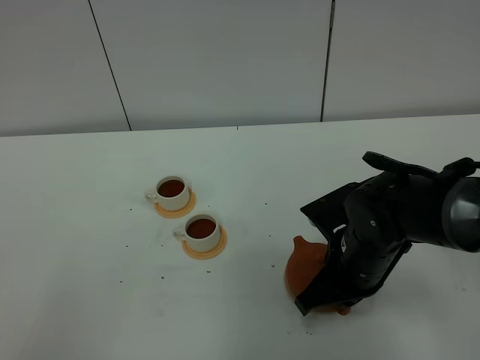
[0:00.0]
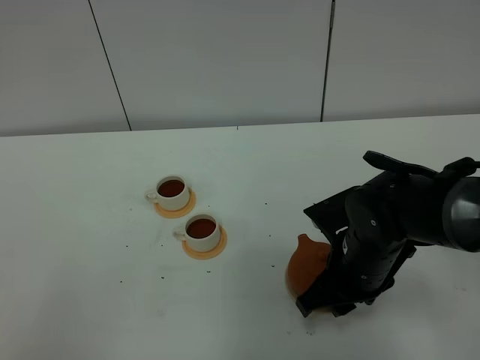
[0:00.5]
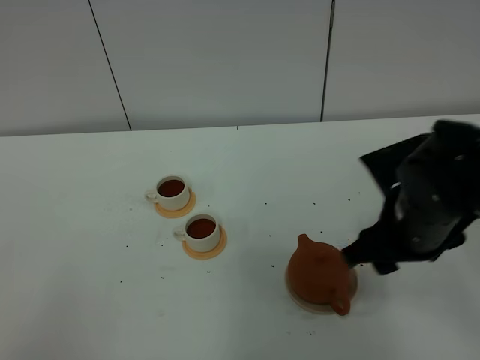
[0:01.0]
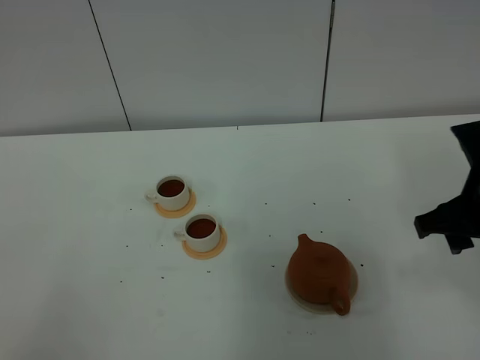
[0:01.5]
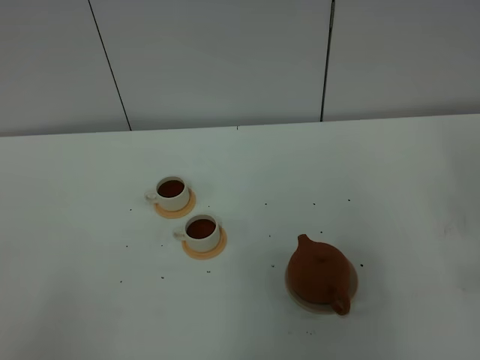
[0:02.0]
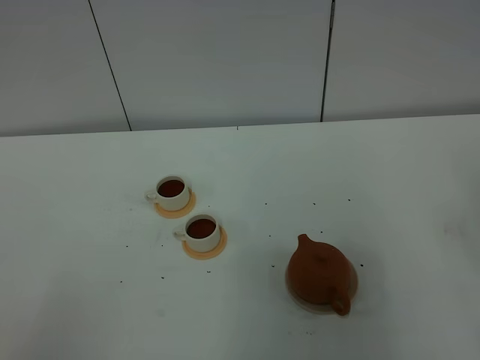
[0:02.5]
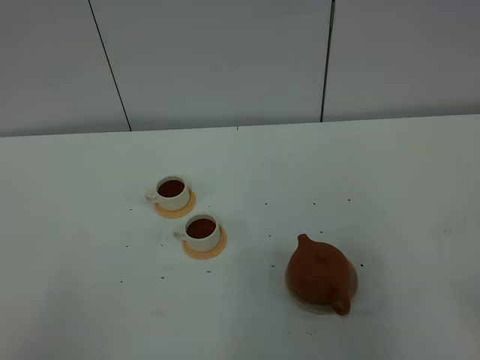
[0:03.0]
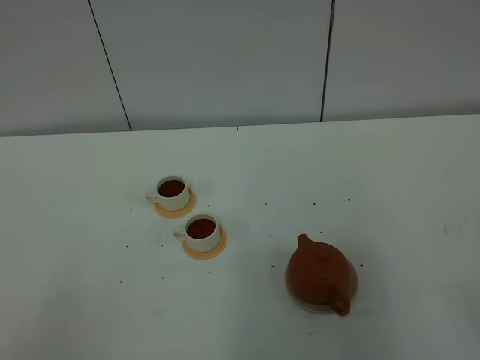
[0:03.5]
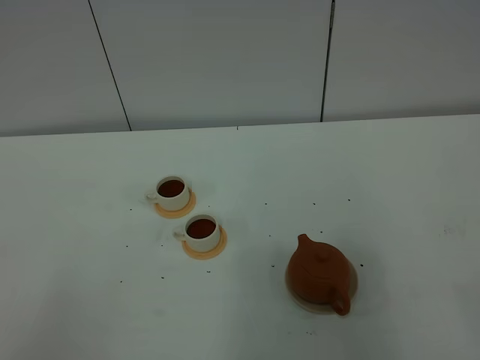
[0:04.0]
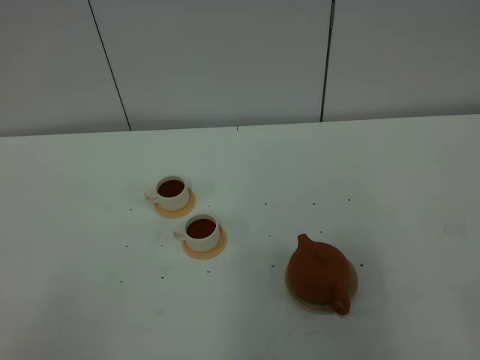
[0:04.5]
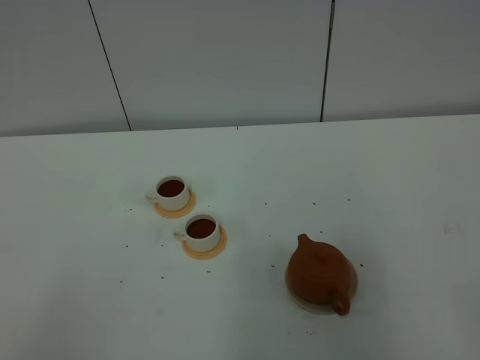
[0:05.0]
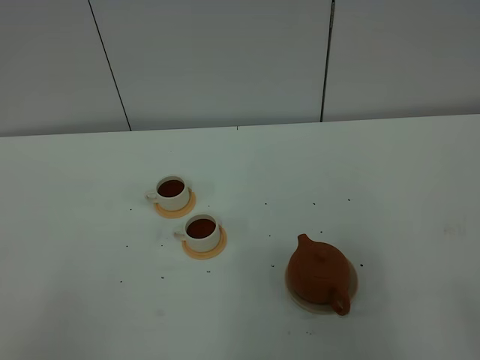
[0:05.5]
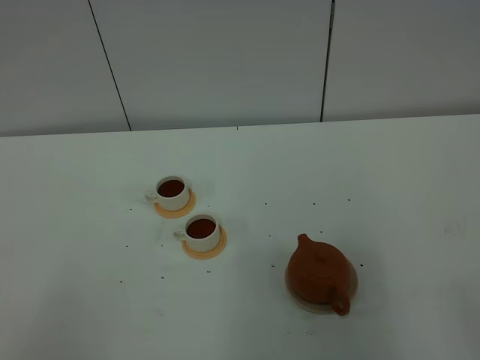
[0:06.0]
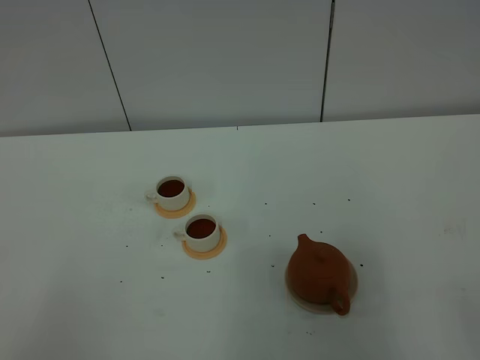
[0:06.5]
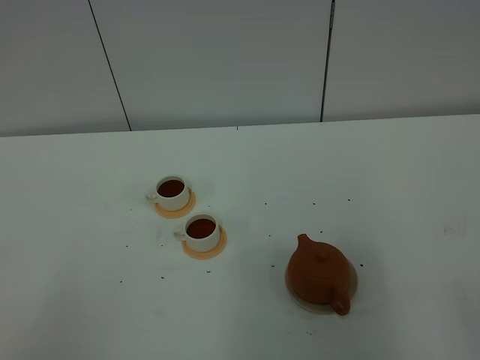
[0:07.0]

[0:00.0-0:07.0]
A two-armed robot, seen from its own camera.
Task of the whole recording: grasp the brown teapot and pour the tea into the two white teacups one by one, put the brown teapot back in its original place.
0:00.0 to 0:02.0: The right gripper goes about 25 cm to the right and upward, and opens.
